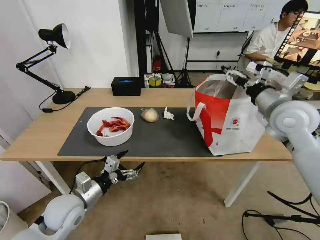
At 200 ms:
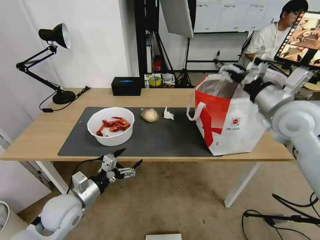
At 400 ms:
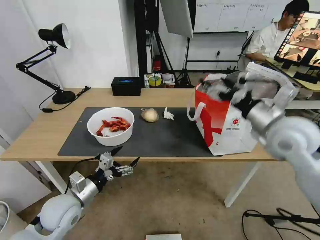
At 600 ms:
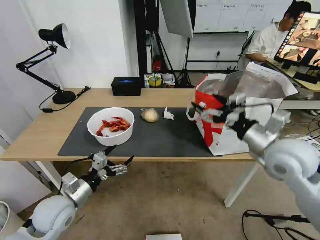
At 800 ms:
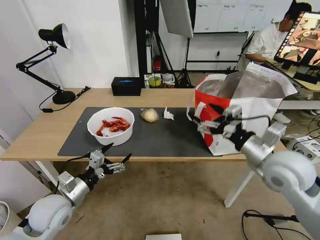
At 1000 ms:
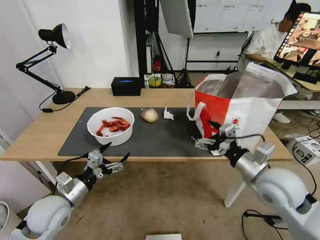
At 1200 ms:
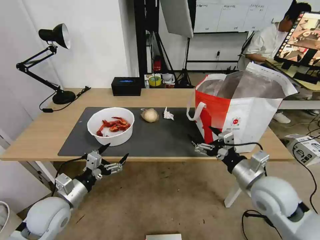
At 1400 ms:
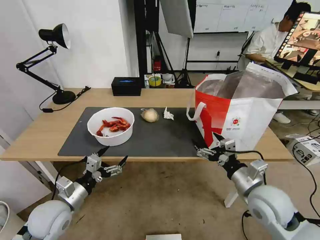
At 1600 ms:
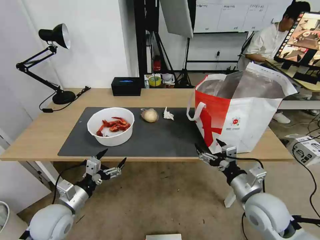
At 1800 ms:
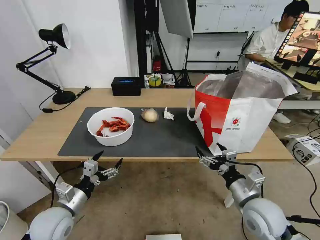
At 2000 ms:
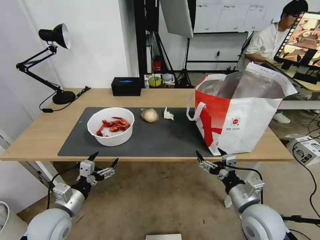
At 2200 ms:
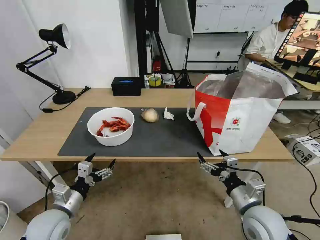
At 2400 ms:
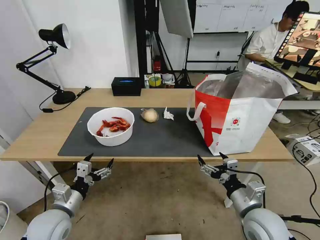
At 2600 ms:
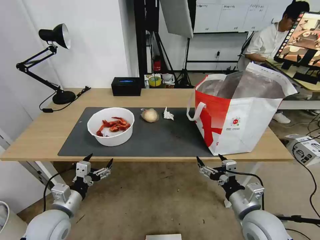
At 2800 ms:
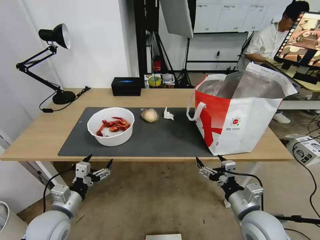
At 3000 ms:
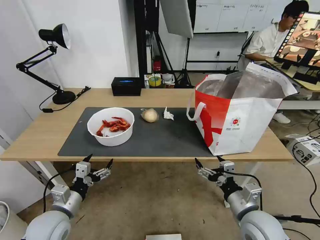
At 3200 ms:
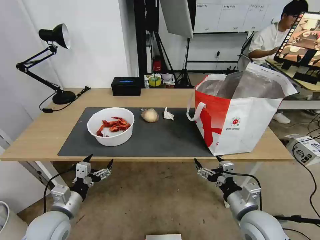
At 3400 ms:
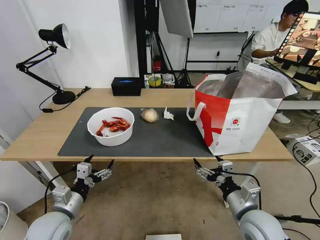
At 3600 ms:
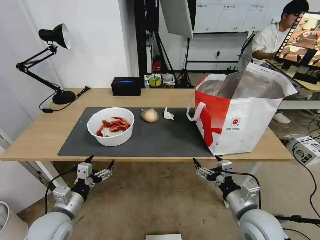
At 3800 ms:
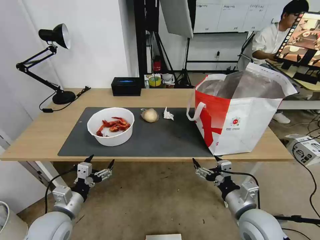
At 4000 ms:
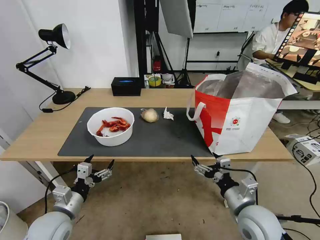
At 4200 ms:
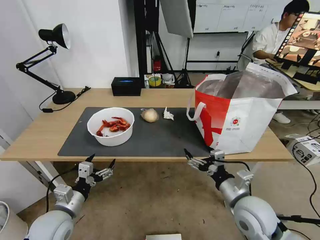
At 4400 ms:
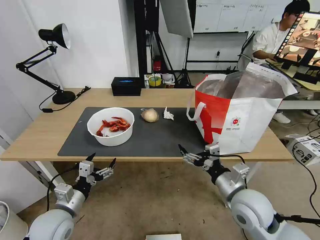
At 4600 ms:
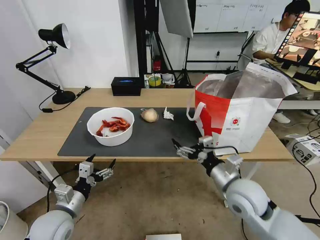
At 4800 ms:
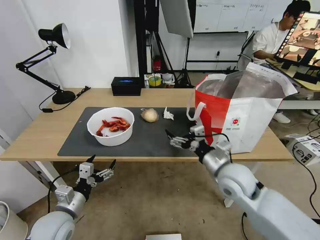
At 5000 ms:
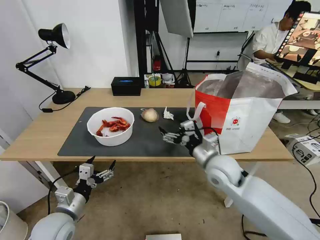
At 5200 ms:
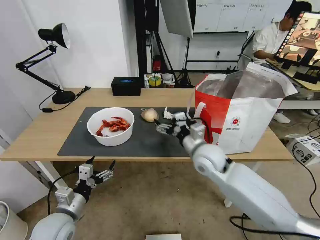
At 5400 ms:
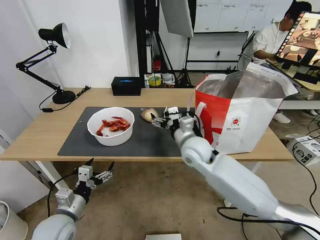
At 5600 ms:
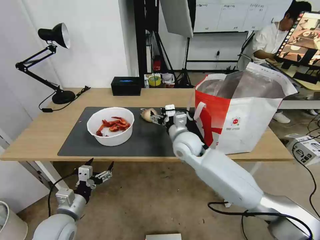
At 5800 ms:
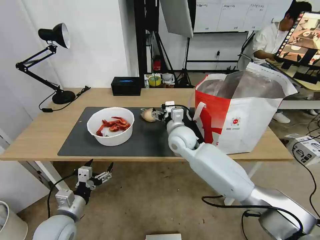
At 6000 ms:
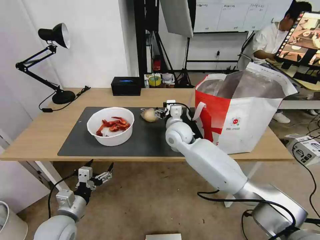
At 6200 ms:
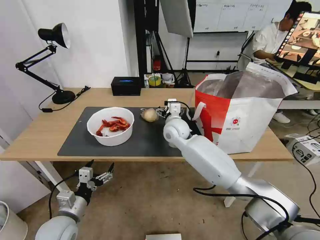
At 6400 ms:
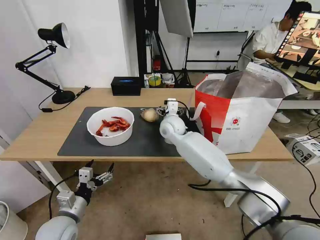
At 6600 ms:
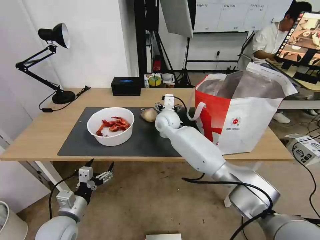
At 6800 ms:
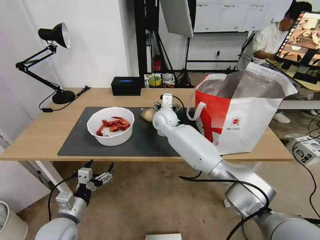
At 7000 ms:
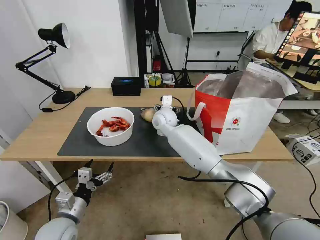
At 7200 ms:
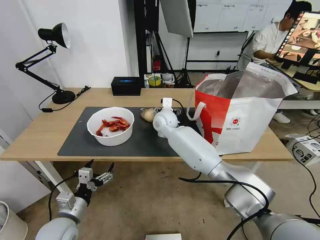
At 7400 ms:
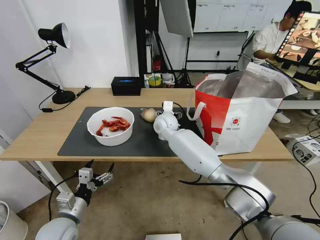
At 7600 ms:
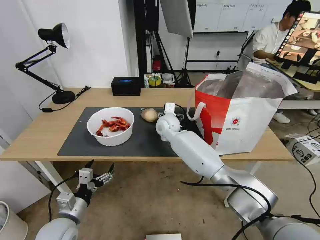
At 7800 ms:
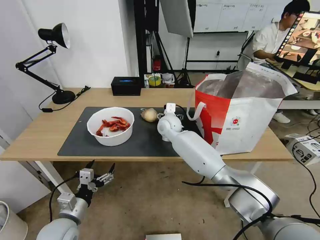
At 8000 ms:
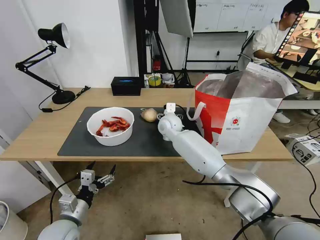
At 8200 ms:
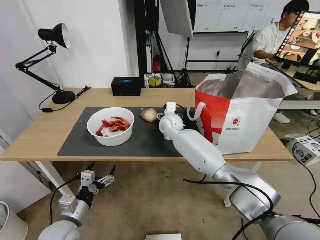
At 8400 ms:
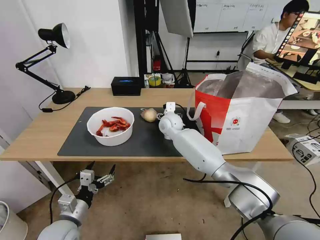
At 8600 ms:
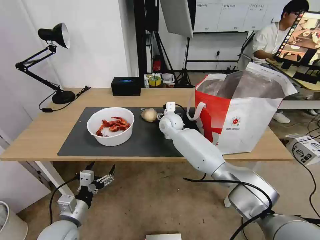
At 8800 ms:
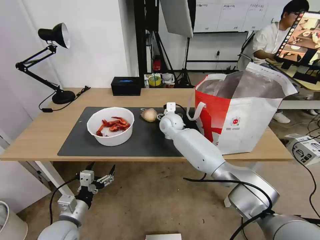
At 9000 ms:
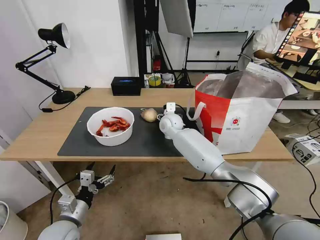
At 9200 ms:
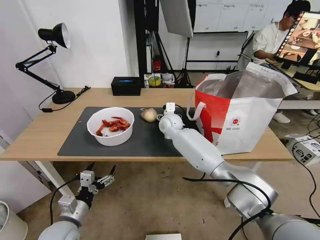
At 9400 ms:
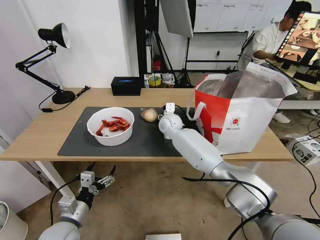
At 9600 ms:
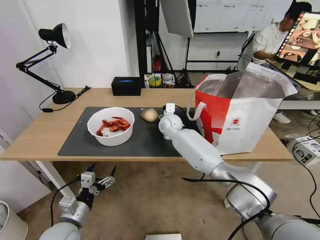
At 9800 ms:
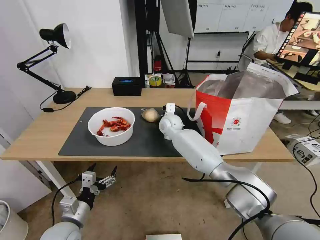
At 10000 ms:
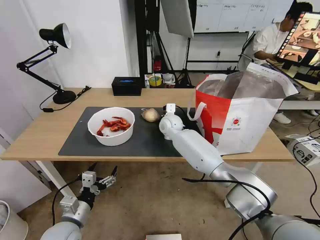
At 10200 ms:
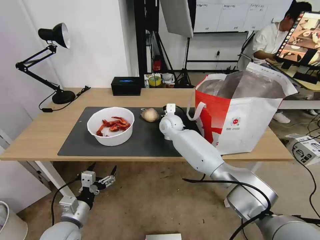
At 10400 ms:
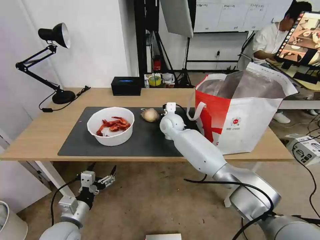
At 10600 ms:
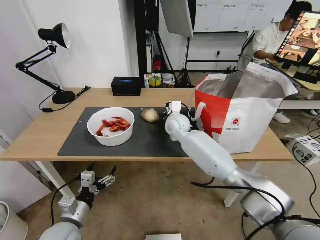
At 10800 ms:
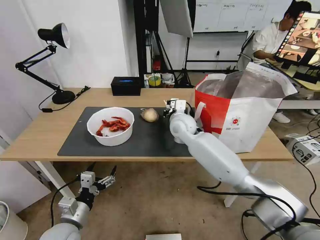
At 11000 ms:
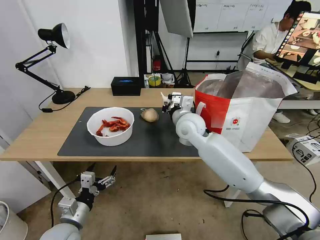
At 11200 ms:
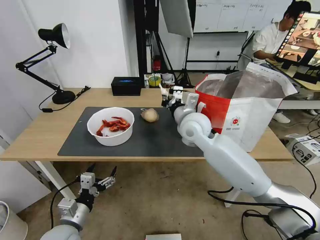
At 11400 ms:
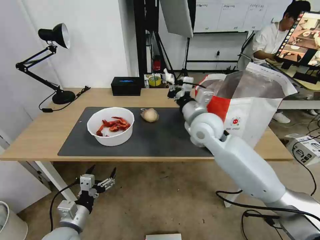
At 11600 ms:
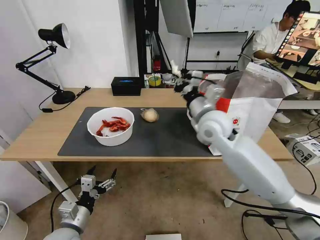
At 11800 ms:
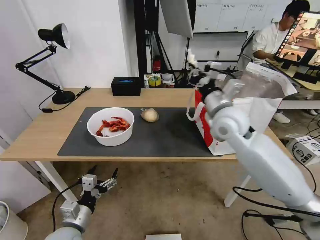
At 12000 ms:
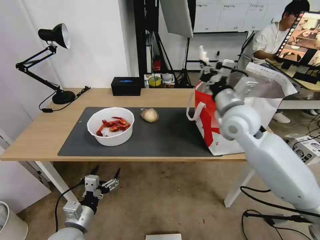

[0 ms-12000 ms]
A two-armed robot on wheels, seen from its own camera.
Task of the whole recording: Pick up the trash from the table and place it into the takeout bag.
0 ms to 1600 ms: The right gripper is displaced downward and backward by some 25 cm.
1600 ms to 3000 ms: The grippers make only small movements.
3000 ms to 4400 ms: The right gripper moves roughly 5 cm.
4400 ms to 6000 ms: The right gripper goes some 30 cm forward and to the left.
6000 ms to 7600 ms: The right gripper heads forward, covering about 5 cm.
7600 ms to 9000 ms: The grippers stay close to where they were, moving slightly.
9000 ms to 10400 ms: The right gripper closes its fingers.
10400 ms to 12000 ms: The right gripper moves to the right, upward and backward, roughly 25 cm.

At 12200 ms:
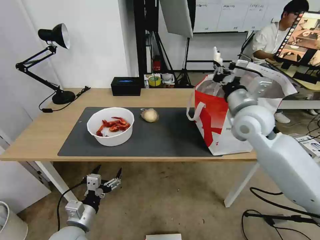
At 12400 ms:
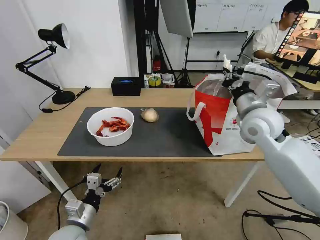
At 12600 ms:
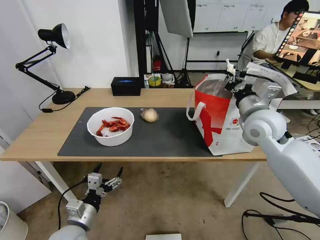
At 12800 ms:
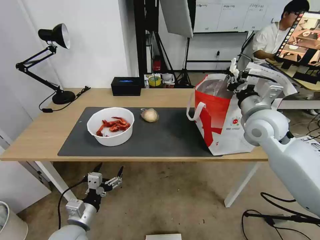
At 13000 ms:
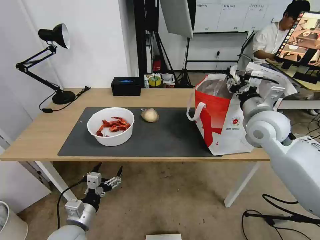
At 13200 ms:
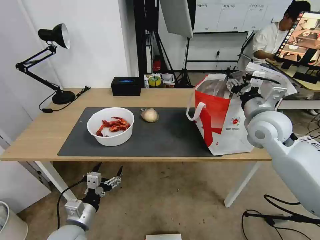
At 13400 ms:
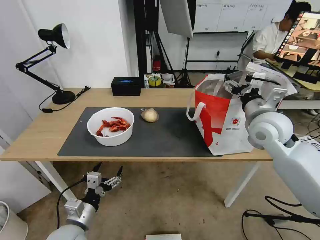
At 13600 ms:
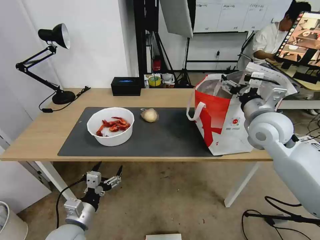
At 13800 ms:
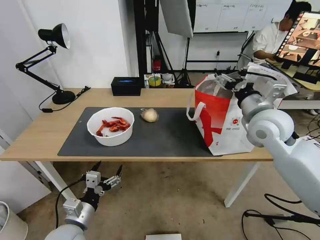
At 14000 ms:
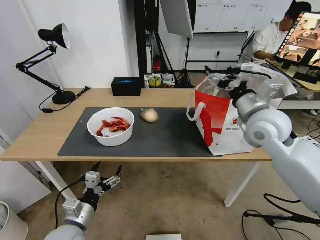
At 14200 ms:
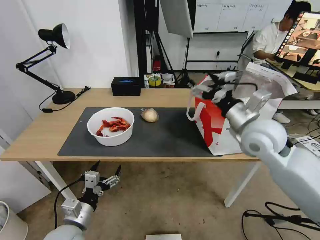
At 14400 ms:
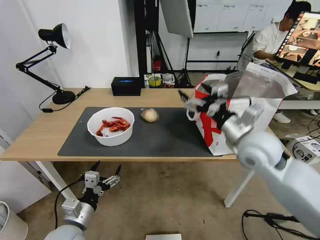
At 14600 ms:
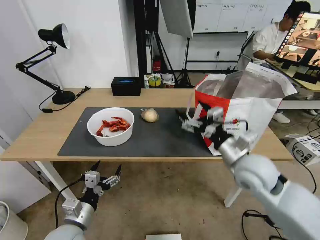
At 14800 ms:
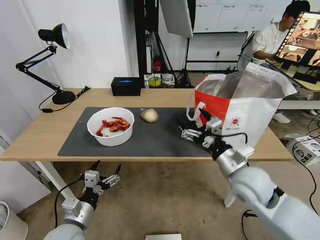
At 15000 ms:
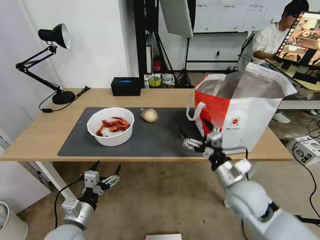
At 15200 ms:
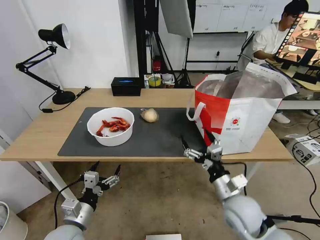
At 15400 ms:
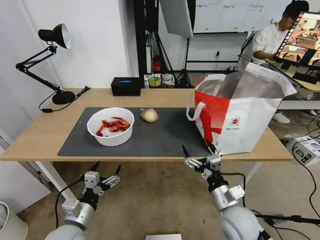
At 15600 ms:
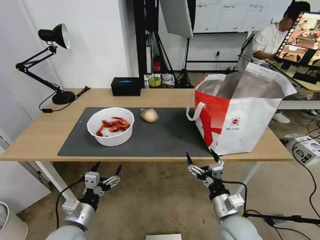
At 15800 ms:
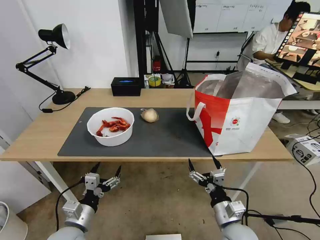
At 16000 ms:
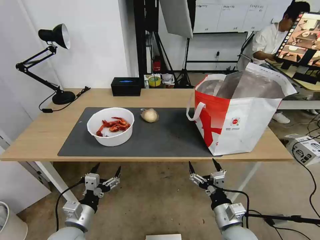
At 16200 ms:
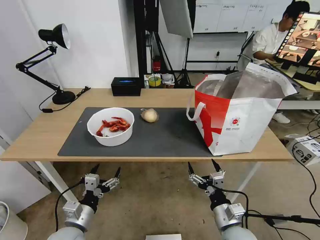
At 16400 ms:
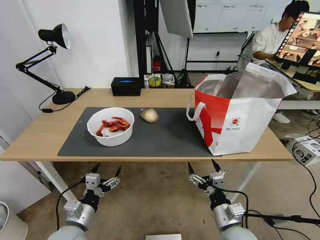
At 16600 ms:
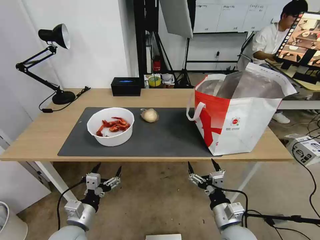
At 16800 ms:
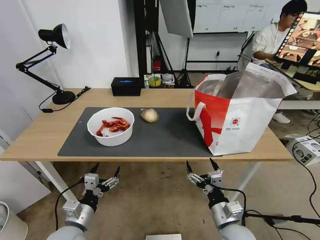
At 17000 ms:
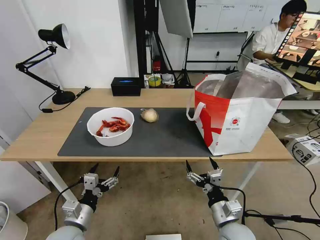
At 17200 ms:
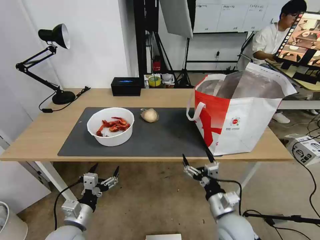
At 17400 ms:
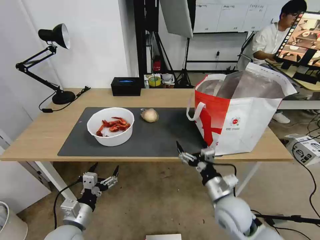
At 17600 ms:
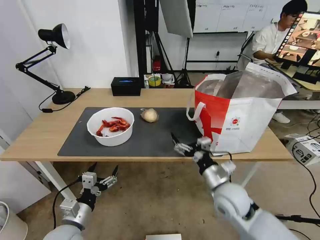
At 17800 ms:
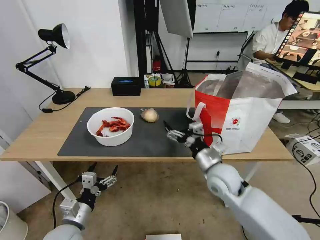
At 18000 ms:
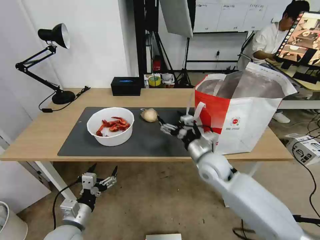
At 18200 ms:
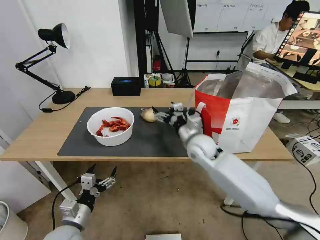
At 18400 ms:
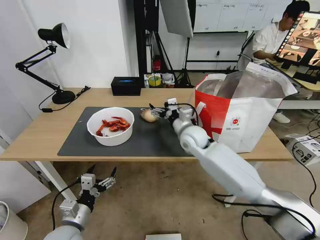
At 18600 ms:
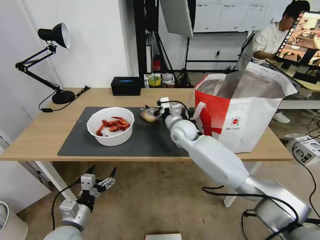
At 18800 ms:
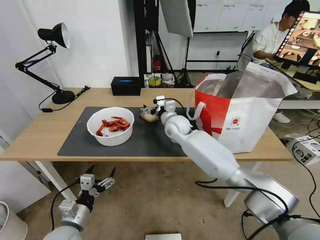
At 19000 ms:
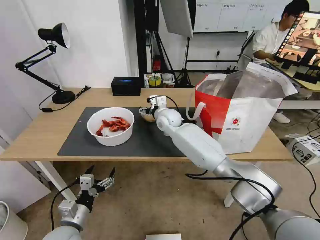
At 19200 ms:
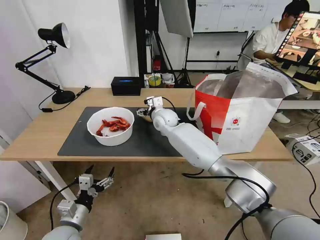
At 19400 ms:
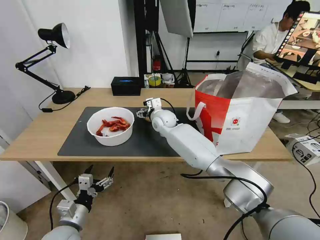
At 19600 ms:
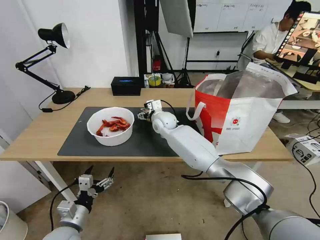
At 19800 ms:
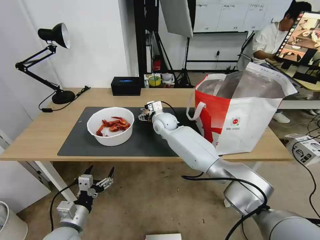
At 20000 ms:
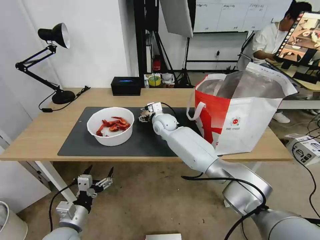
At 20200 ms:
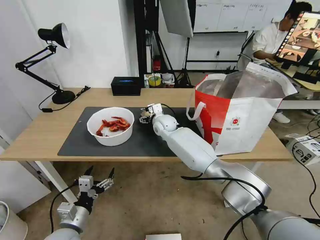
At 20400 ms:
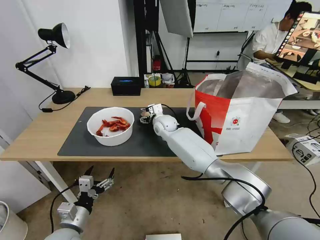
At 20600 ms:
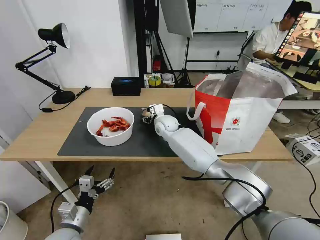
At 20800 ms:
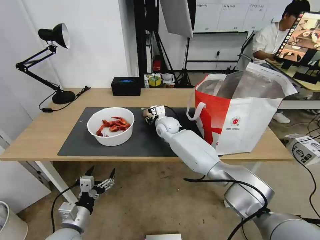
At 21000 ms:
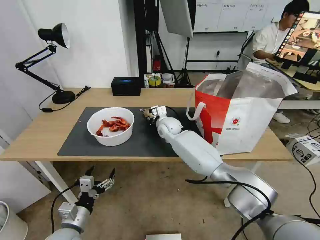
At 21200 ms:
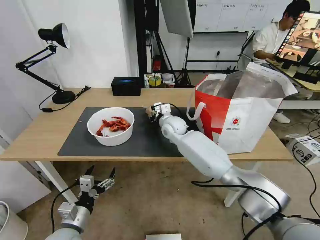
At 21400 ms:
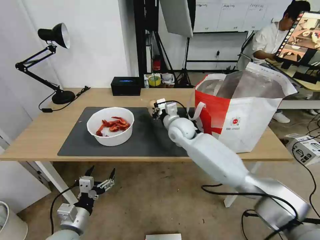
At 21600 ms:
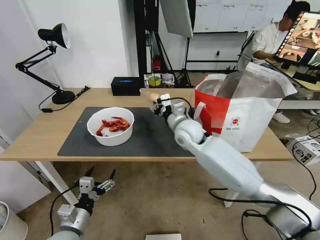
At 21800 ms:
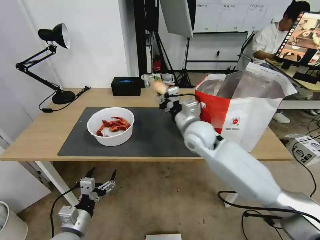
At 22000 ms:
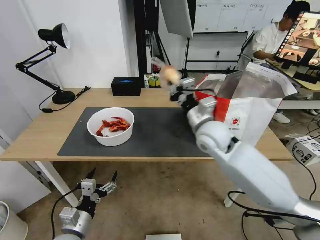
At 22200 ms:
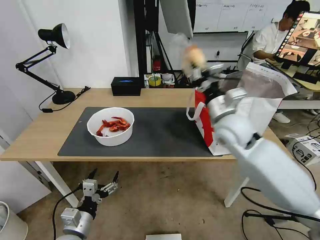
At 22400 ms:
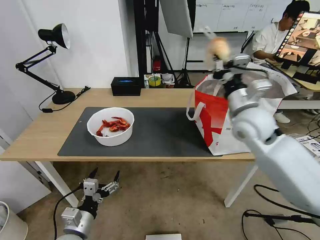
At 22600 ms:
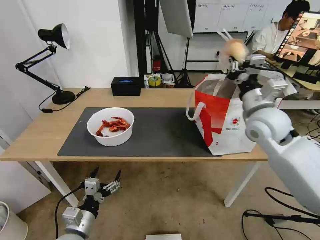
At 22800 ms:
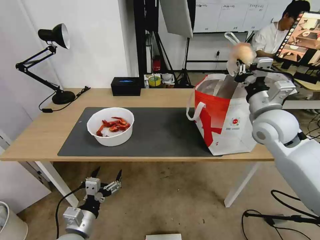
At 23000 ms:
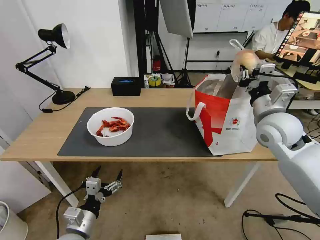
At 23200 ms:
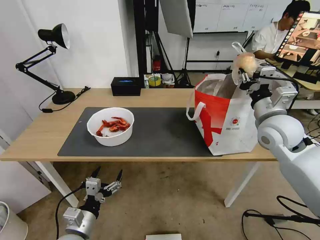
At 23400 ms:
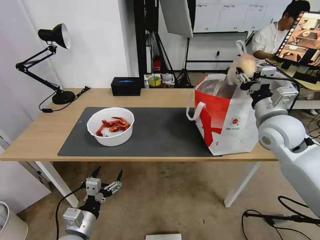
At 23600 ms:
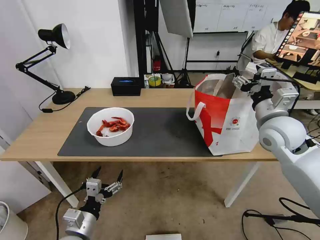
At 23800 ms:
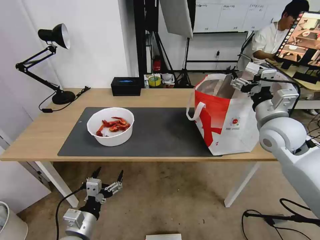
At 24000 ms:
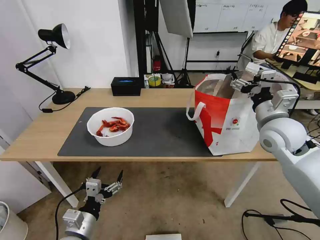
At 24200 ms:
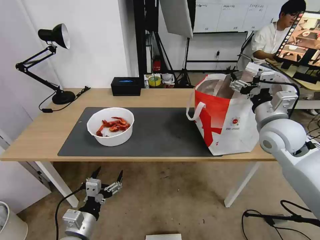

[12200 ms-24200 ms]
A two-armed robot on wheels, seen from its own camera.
Task of the whole recording: Pick up the trash from the table and place it into the takeout bag.
12200 ms to 13800 ms: The right gripper opens.
13800 ms to 15200 ms: The right gripper goes about 25 cm downward and backward.
15200 ms to 16600 ms: The right gripper shifts roughly 10 cm backward and downward.
16600 ms to 18200 ms: The right gripper goes about 30 cm forward and upward.
18200 ms to 19800 ms: The right gripper moves forward and to the left, about 20 cm.
19800 ms to 21200 ms: The right gripper closes.
21200 ms to 22600 ms: The right gripper moves to the right, upward and backward, roughly 30 cm.
22600 ms to 24200 ms: The right gripper opens its fingers.
